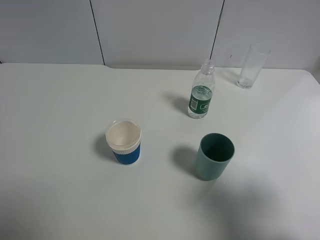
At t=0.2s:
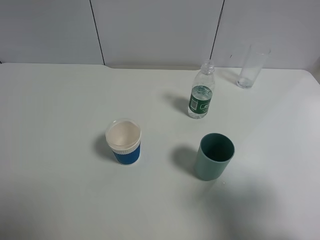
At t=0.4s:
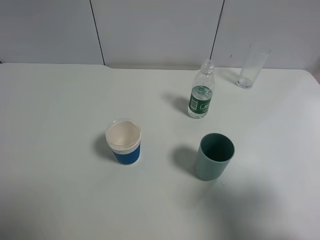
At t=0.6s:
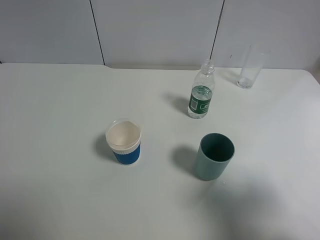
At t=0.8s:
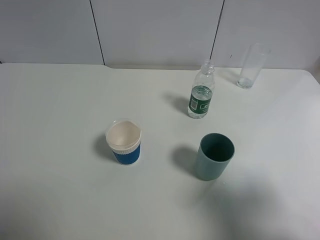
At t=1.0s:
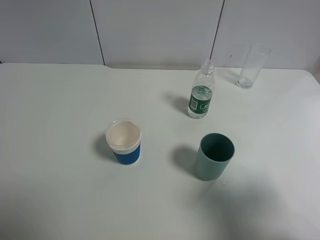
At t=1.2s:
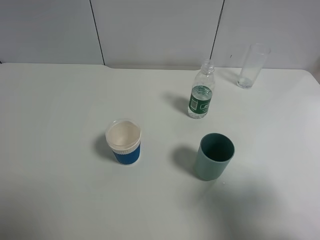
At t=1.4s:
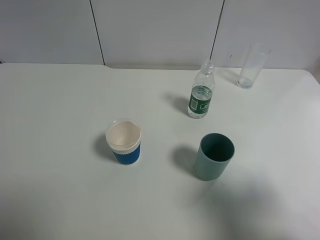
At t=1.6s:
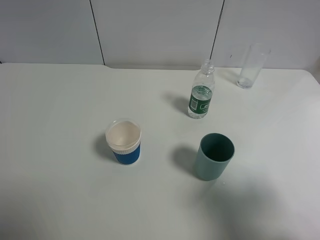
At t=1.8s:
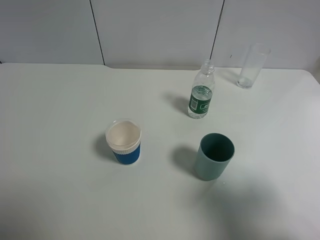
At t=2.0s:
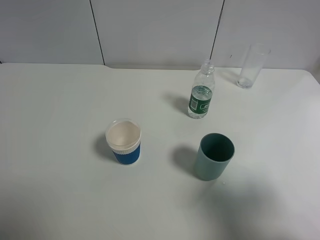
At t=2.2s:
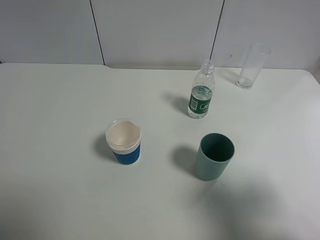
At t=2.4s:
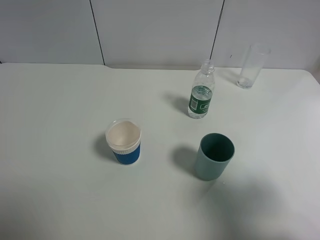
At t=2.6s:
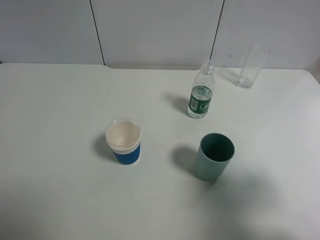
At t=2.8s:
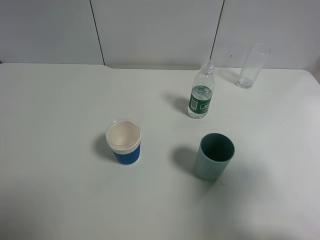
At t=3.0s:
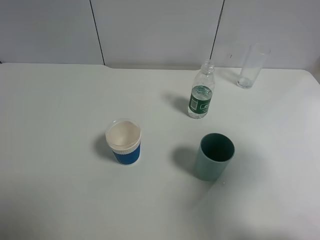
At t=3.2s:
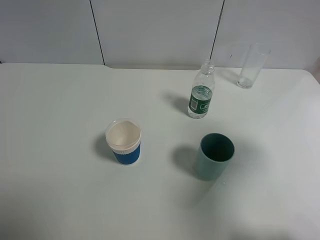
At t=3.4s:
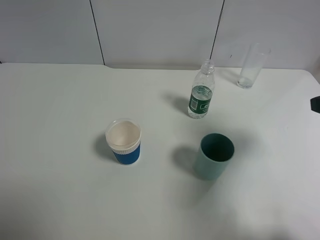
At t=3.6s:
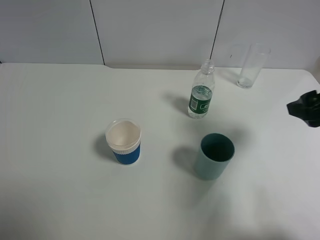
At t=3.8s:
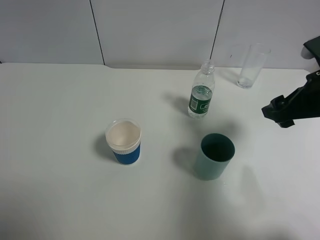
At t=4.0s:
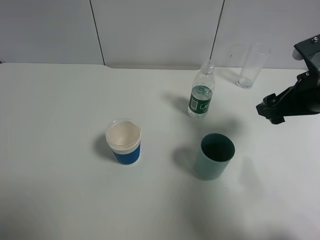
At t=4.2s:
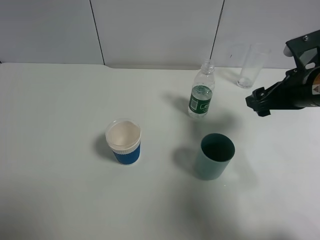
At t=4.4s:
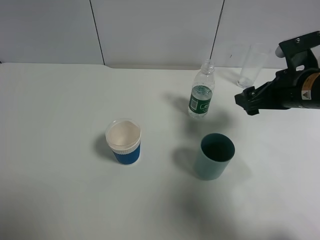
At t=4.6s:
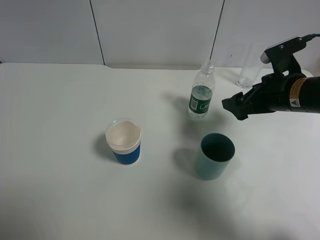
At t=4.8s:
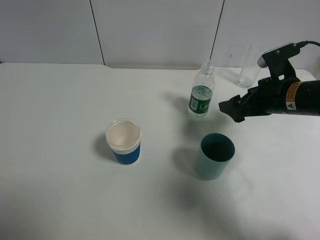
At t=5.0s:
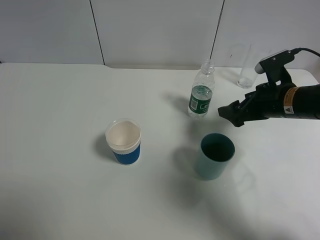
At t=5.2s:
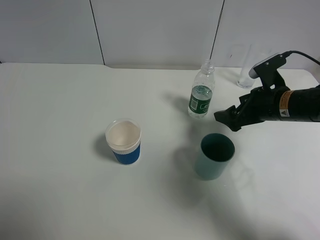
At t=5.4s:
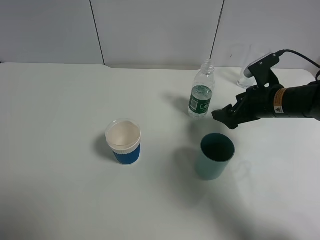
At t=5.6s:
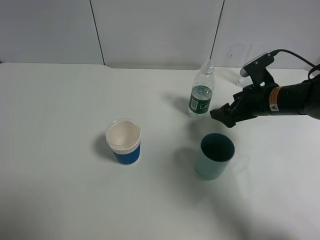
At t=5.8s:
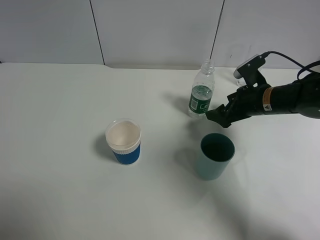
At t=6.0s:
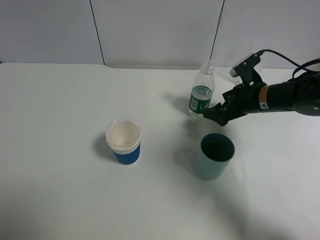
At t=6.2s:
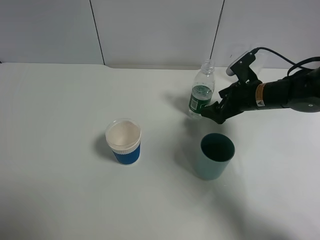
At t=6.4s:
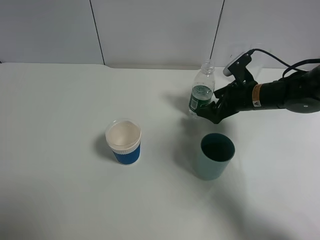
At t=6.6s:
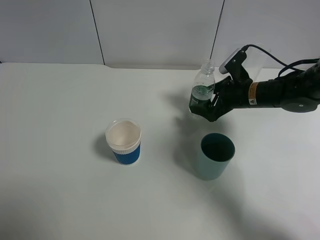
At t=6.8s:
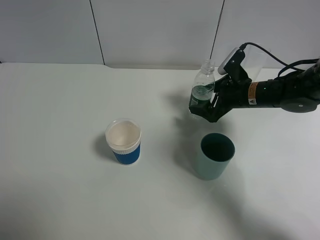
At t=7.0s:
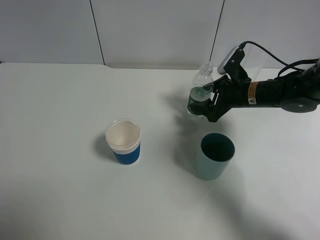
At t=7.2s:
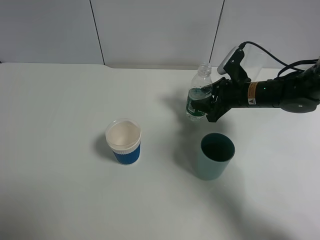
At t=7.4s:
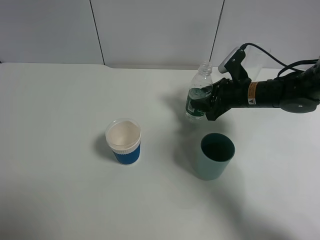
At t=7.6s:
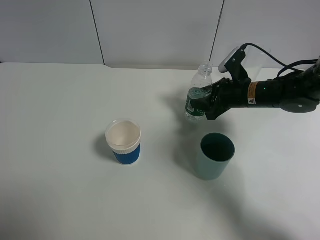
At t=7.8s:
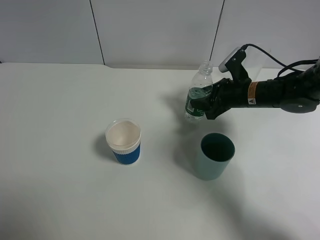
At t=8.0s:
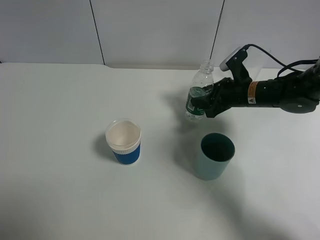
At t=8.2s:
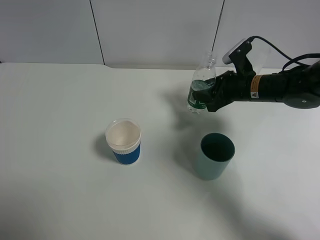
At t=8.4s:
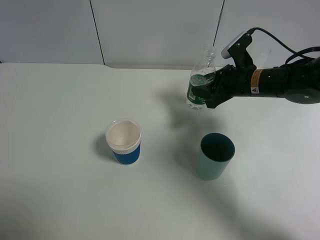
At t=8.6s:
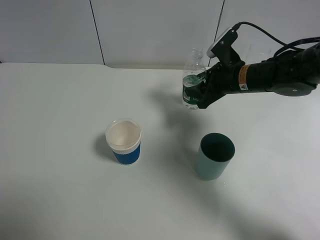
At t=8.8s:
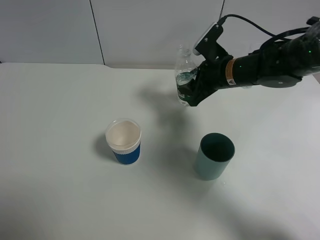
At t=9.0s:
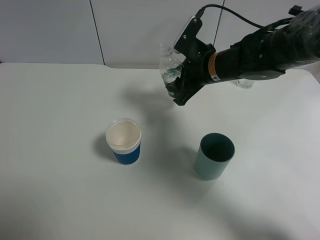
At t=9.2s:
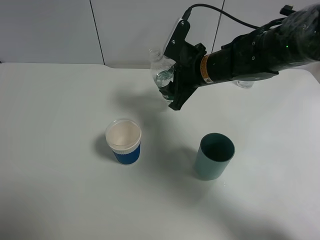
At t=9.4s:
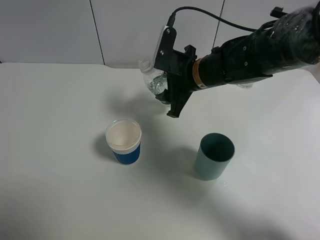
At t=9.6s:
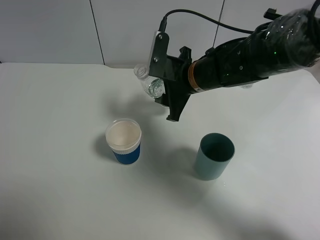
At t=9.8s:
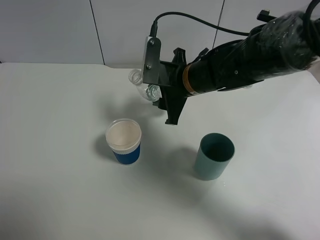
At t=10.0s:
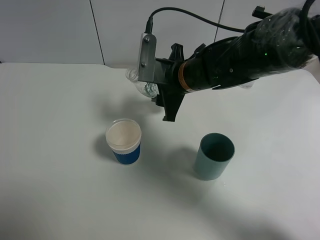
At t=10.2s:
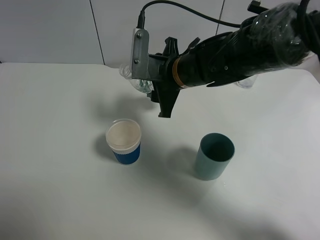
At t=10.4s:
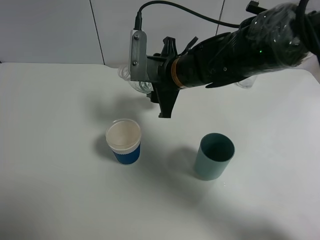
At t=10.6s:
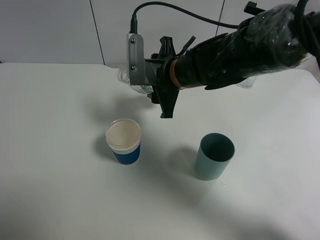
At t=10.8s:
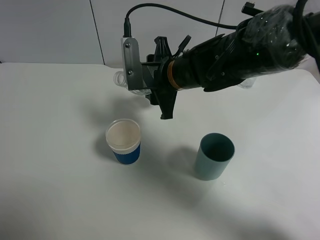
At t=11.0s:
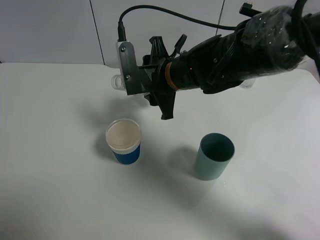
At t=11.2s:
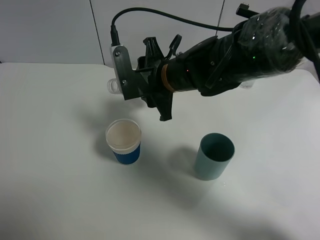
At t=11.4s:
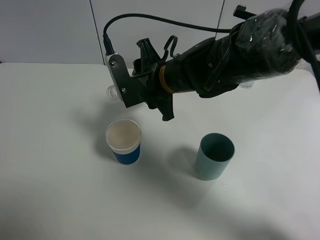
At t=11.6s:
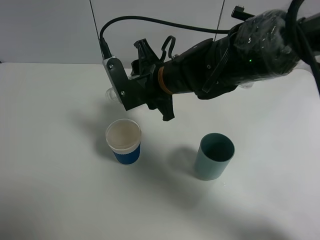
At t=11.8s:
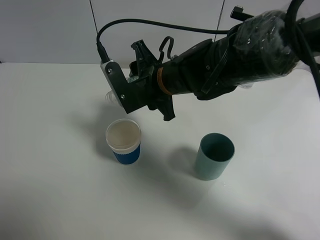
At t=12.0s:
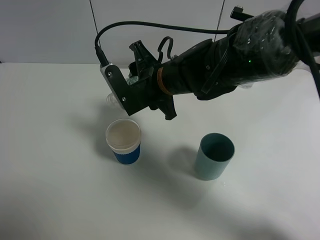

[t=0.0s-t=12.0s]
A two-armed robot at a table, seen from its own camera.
Task of the whole recording: use a gripper to hold the bottle of the drink and pour it into a random cup.
Step, t=0.0s to t=7.8s: Grasp the mineral water bottle with the right gripper.
t=0.0s to t=1.6s: The two grippers keep their place.
t=1.6s to t=3.0s: The right gripper is displaced forward by roughly 10 cm.
t=3.0s to t=4.4s: The right gripper travels forward and downward by roughly 20 cm.
t=4.4s to t=6.0s: The right gripper moves downward and forward, approximately 10 cm.
t=6.0s to t=7.6s: The right gripper closes.
t=7.6s to t=9.0s: The right gripper heads to the left and upward, covering some 10 cm.
t=9.0s to t=10.4s: The right gripper is displaced to the left by about 5 cm.

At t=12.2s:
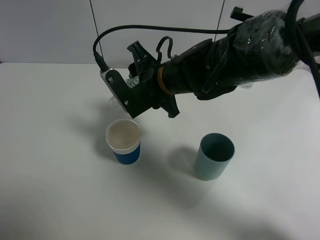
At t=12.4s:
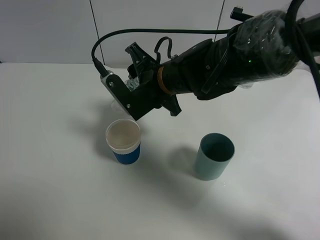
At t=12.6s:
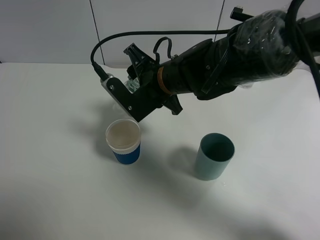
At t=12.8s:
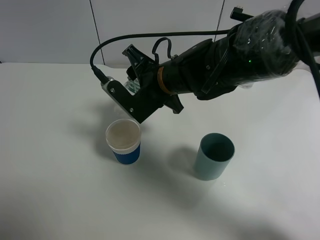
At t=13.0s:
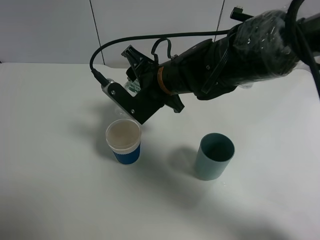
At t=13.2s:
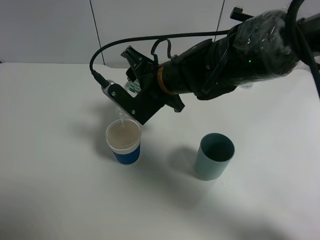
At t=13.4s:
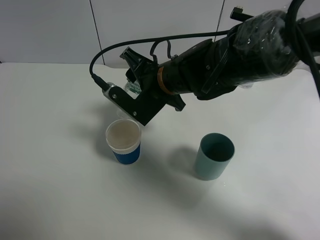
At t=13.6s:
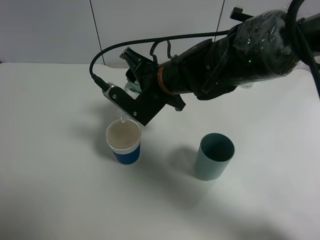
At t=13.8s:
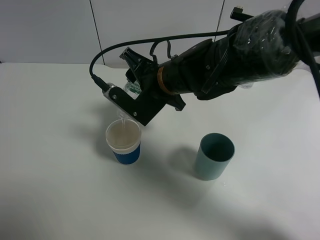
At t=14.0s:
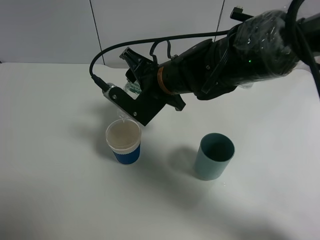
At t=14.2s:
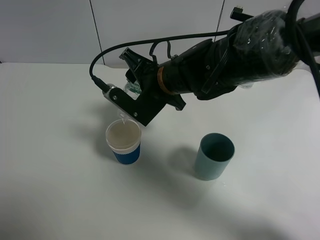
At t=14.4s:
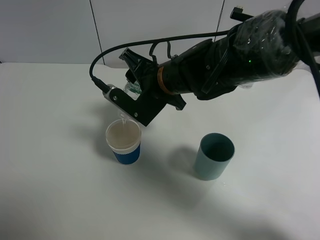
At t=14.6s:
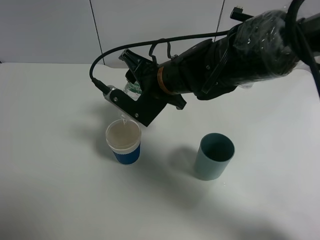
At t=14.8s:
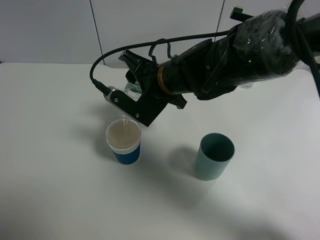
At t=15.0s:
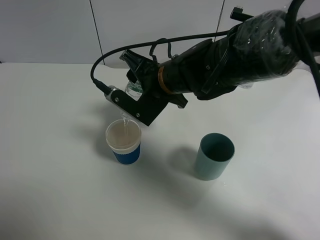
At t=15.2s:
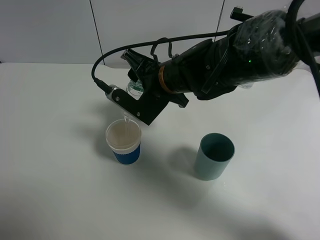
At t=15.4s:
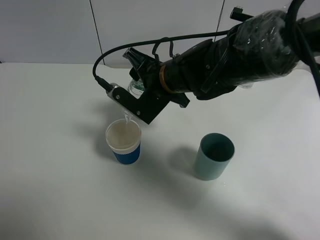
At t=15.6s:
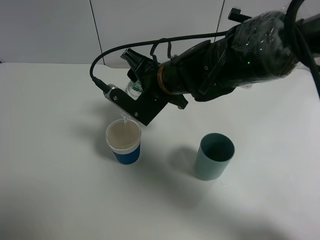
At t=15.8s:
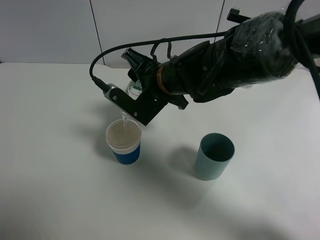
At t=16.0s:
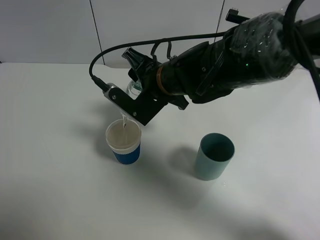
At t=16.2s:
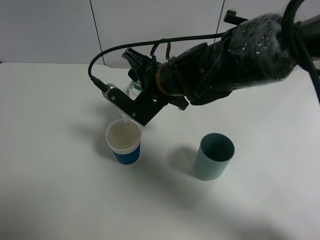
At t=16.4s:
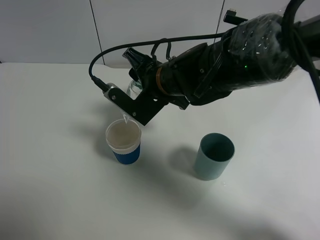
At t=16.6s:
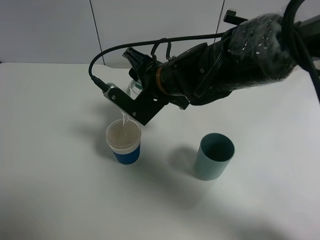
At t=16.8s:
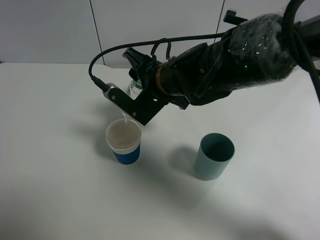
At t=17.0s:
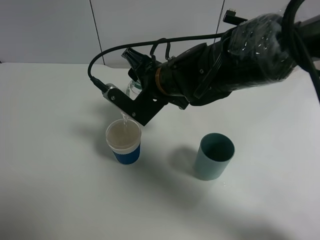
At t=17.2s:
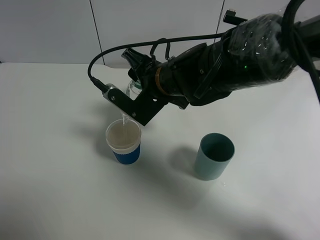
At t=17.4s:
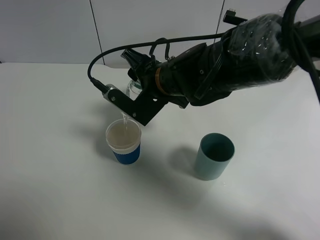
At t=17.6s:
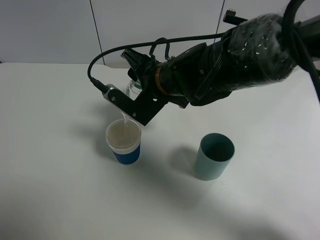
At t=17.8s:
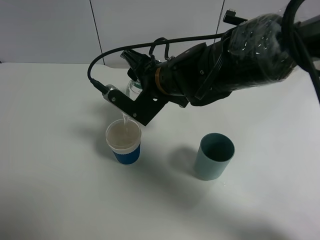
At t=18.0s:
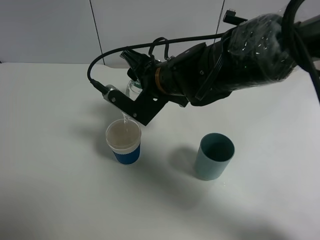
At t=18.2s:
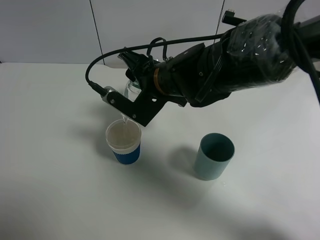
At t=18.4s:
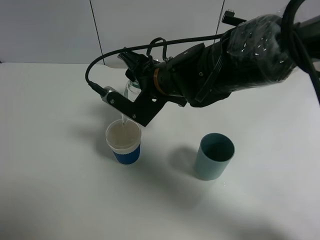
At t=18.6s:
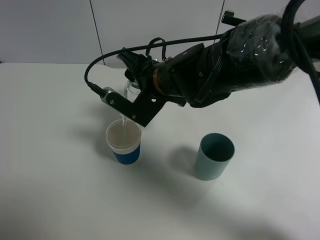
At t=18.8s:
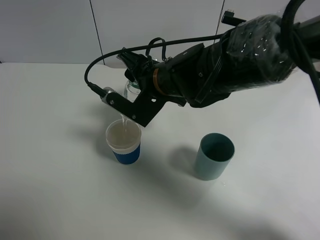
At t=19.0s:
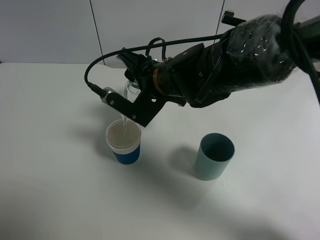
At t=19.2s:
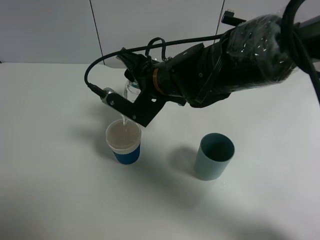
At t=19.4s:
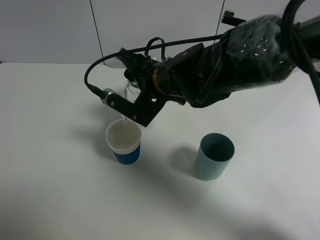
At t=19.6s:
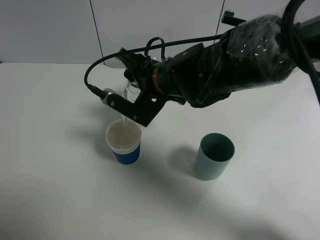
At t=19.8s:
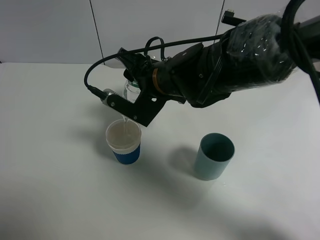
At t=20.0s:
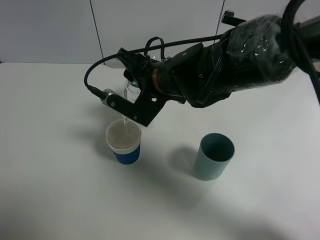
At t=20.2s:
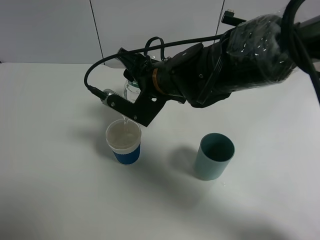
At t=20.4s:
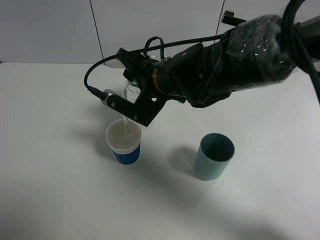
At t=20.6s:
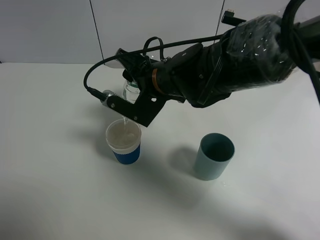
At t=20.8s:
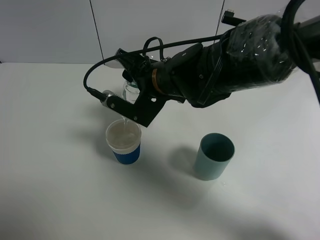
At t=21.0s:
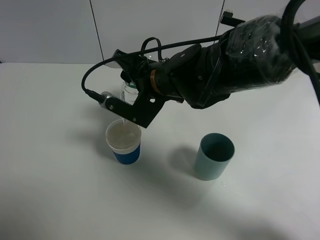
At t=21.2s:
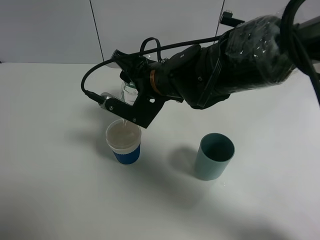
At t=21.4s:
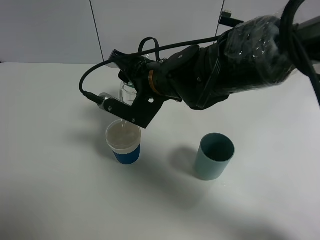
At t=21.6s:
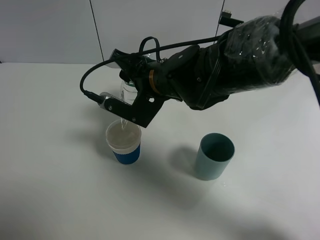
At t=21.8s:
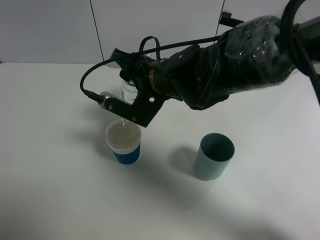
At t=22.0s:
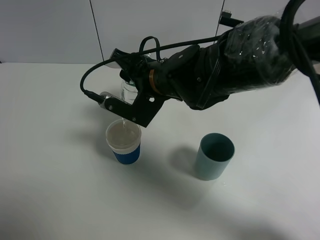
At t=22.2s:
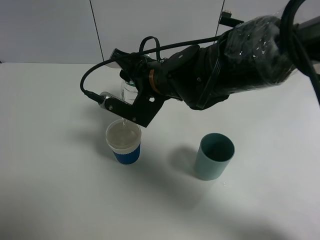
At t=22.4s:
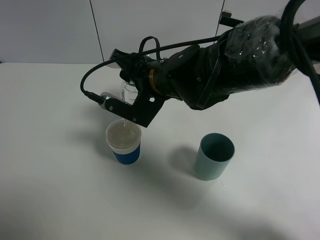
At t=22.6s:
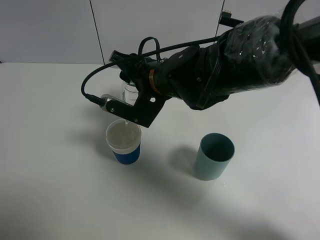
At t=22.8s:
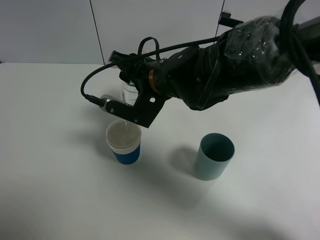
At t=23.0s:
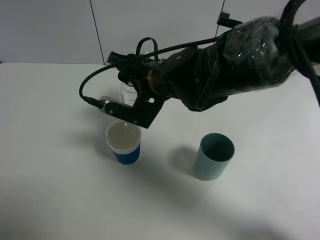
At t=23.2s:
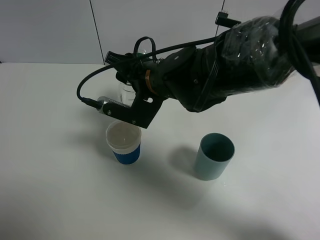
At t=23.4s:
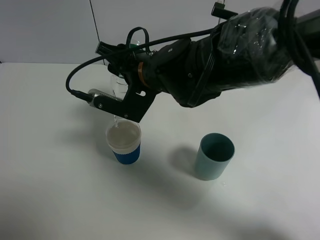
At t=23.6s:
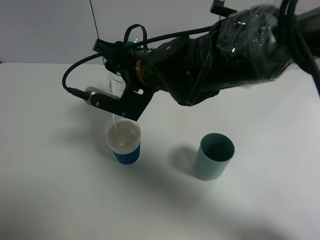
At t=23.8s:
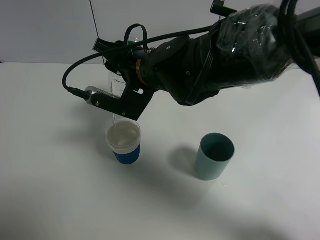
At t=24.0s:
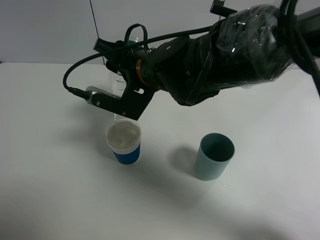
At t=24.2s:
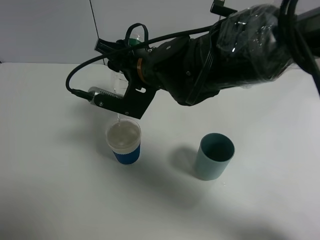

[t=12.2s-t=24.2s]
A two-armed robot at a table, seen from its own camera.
Task of the whole recording: use a gripper to hold the bottle of the drink and pour it into a random cup.
t=12.2s to t=13.8s: The grippers make only small movements.
t=13.8s to t=15.2s: The two grippers keep their place.
t=15.2s to t=16.6s: The grippers move only a little.
t=16.6s to t=18.2s: Both grippers stay put.
t=18.2s to t=19.8s: Both grippers stay about where they are.
t=19.8s to t=21.2s: Neither gripper changes place.
t=21.2s to t=22.6s: Both grippers stay put.
t=22.6s to t=24.2s: There are only small adjustments of the grippers.
